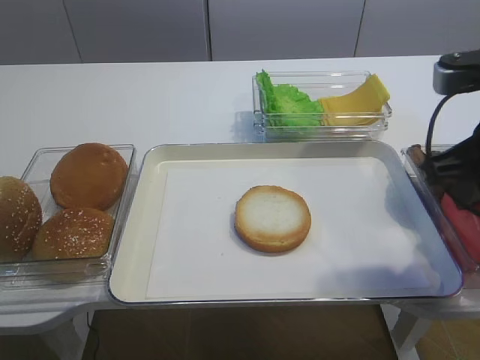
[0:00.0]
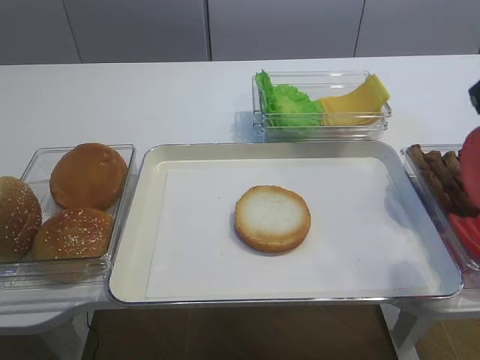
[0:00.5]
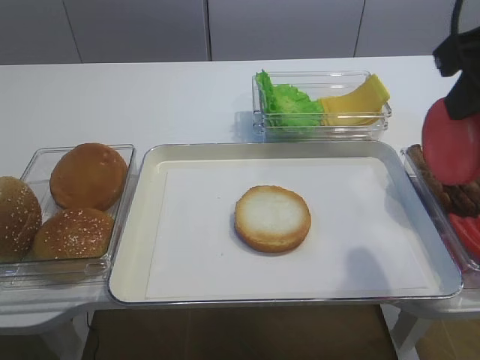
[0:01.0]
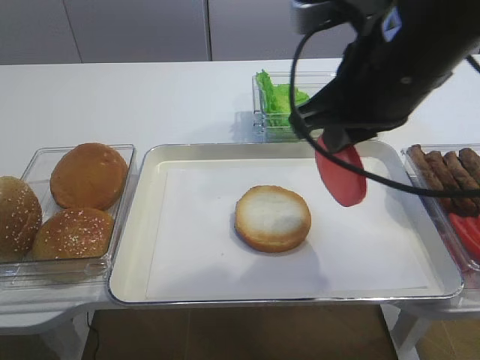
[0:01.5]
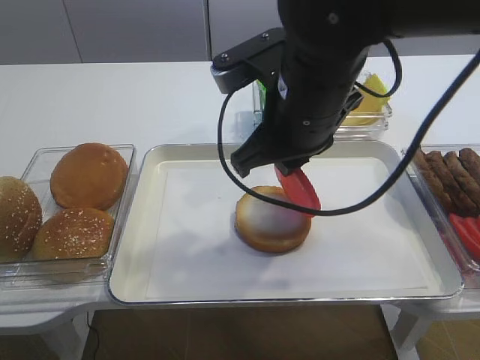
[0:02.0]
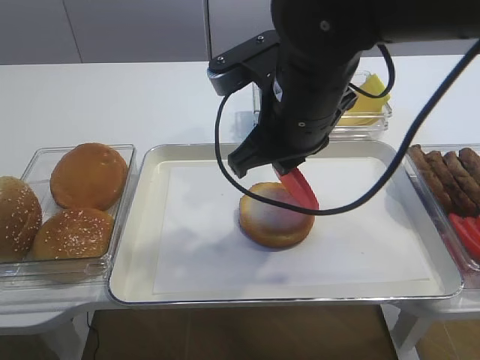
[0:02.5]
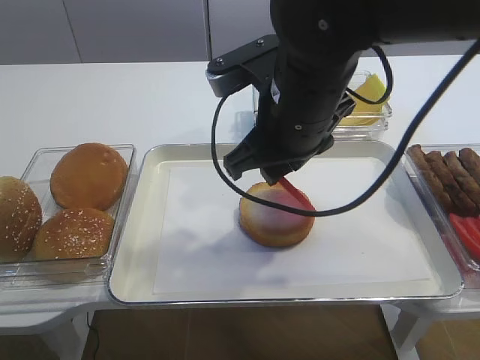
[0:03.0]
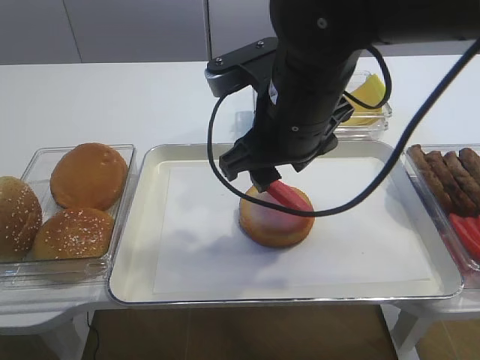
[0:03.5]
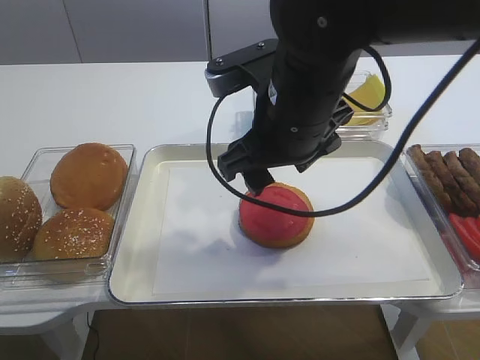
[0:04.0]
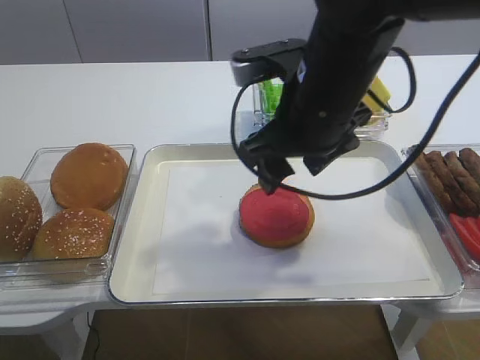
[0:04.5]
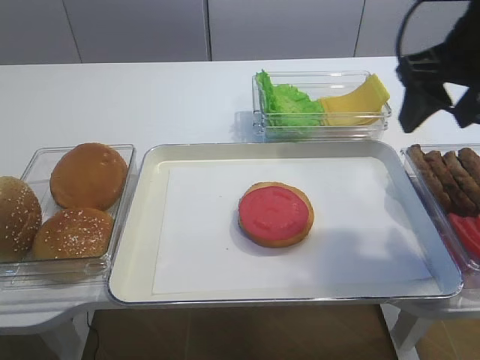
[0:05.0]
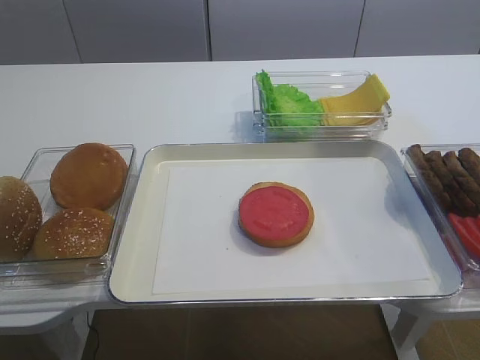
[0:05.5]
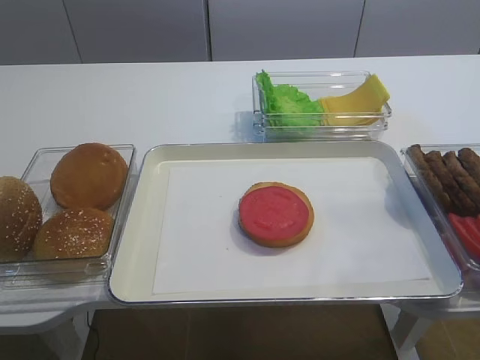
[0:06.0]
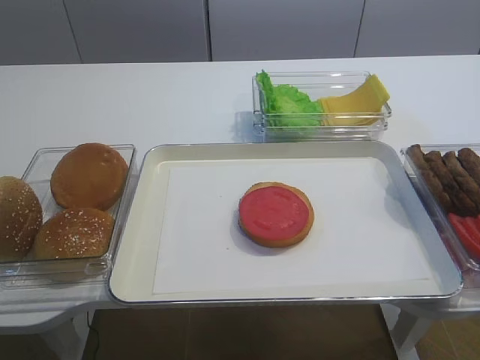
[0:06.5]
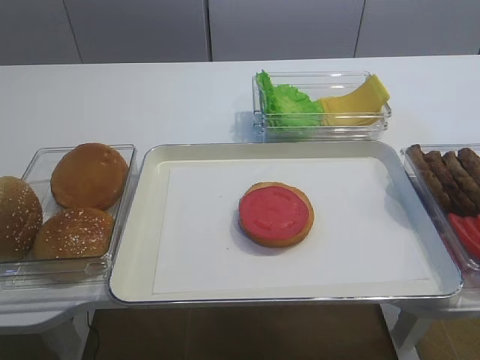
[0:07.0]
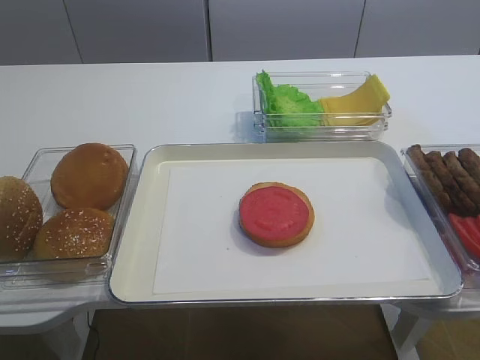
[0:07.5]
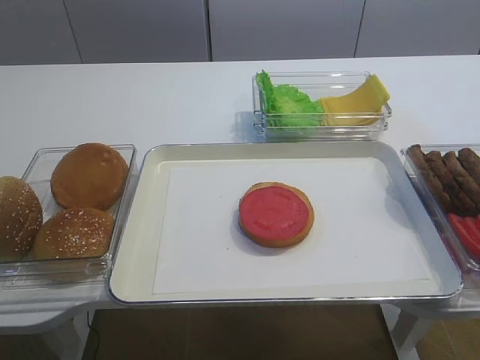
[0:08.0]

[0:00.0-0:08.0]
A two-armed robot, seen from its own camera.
Step, 0:01.0 to 0:04.0: Place the tomato slice on the bread slice with the right gripper.
0:00.0 to 0:02.0: The right gripper heads to the left, covering some 15 cm.
0:02.0 to 0:04.0: The right gripper opens up.
0:04.0 to 0:06.0: The right gripper heads to the right and backward, covering some 30 cm.

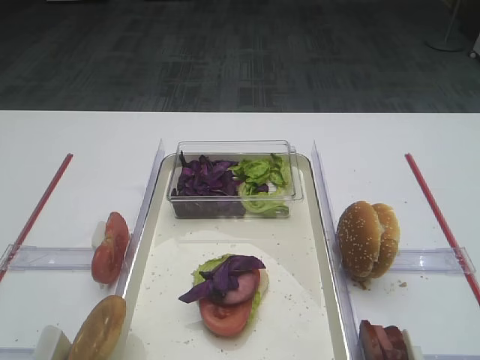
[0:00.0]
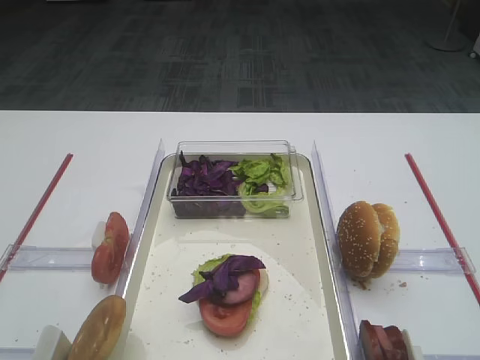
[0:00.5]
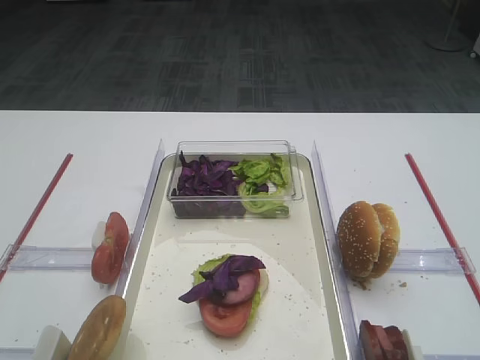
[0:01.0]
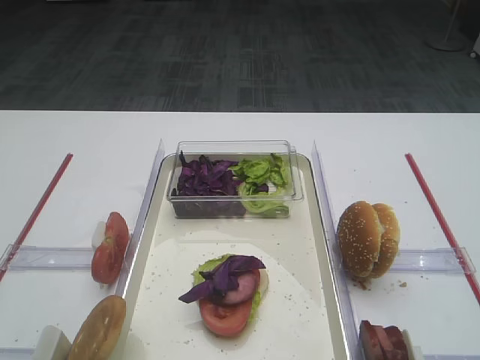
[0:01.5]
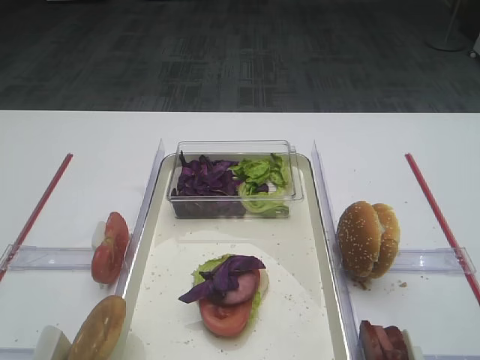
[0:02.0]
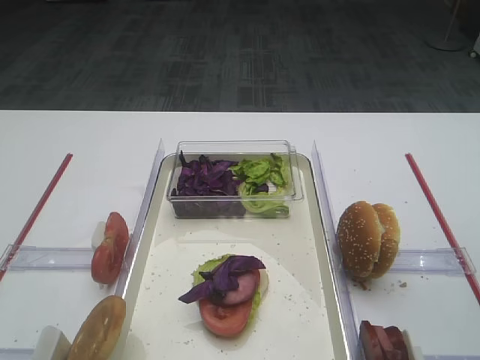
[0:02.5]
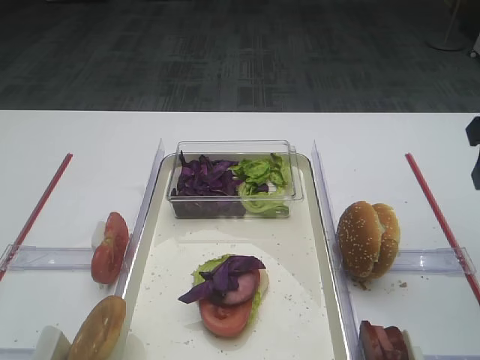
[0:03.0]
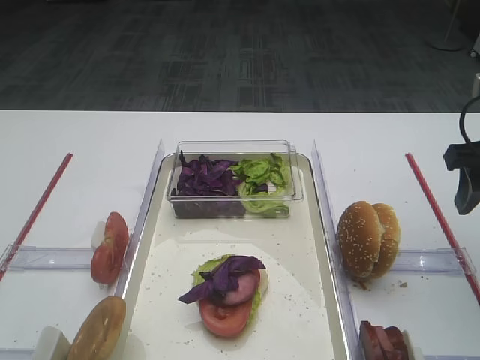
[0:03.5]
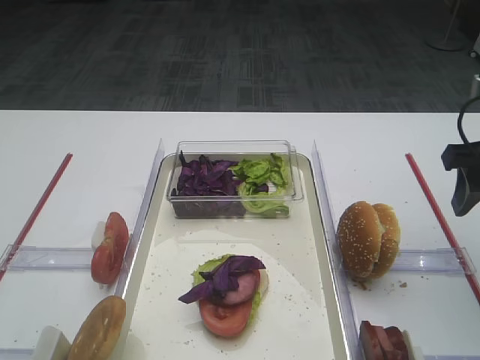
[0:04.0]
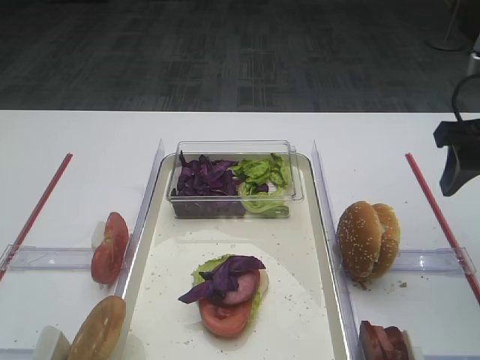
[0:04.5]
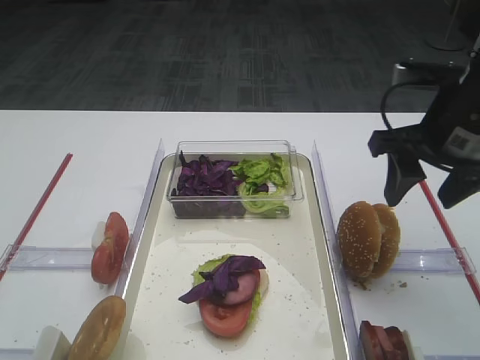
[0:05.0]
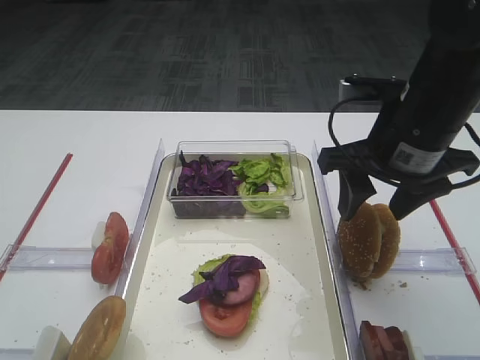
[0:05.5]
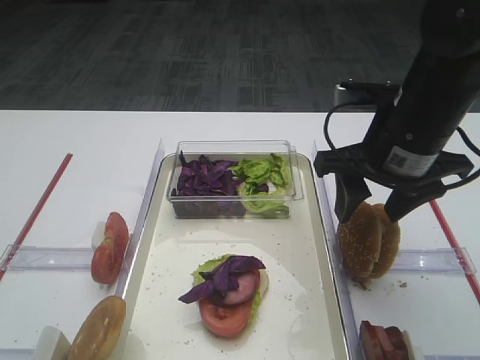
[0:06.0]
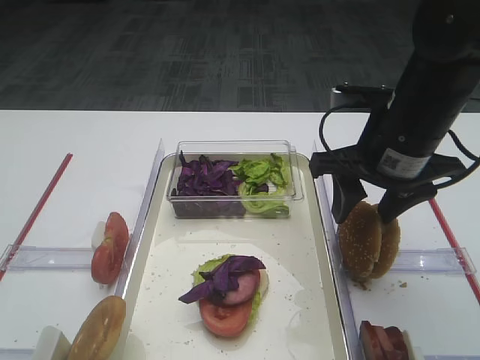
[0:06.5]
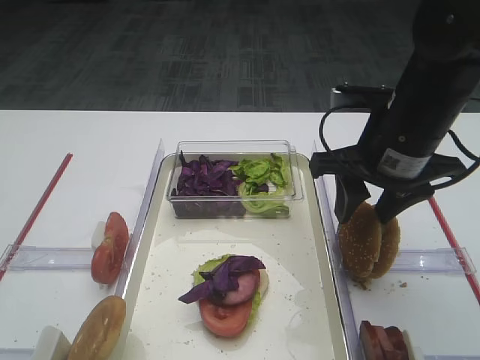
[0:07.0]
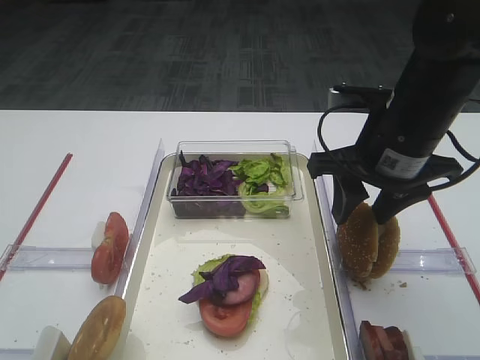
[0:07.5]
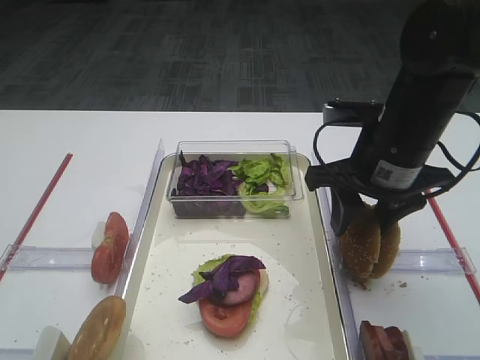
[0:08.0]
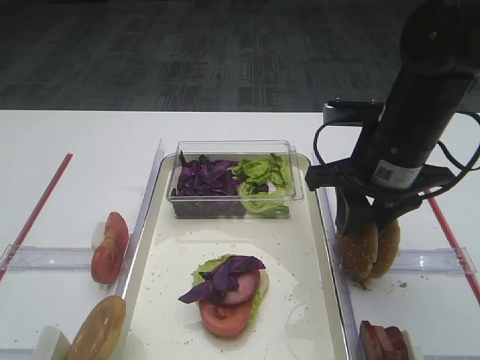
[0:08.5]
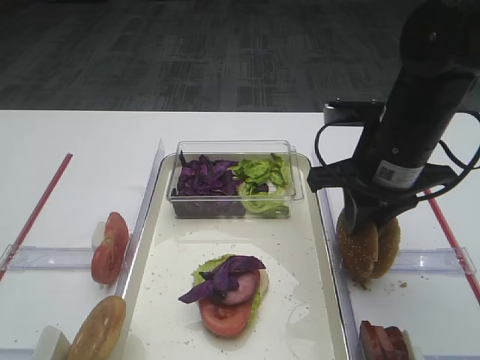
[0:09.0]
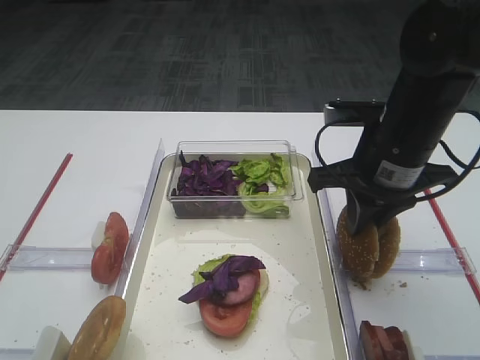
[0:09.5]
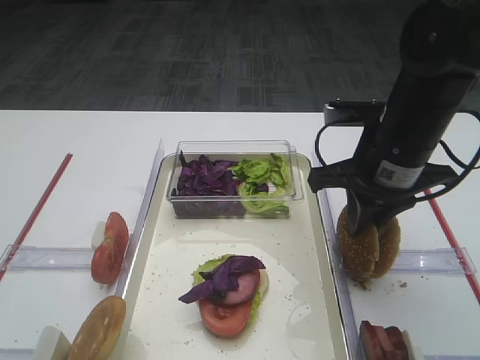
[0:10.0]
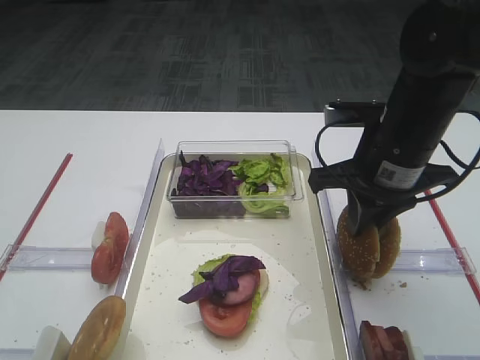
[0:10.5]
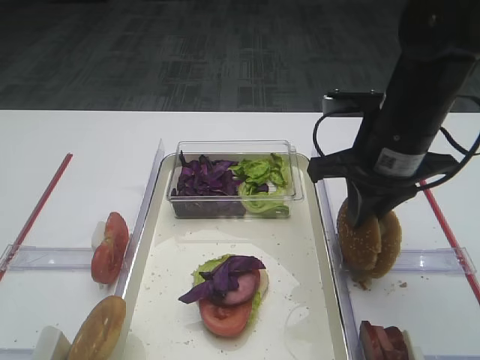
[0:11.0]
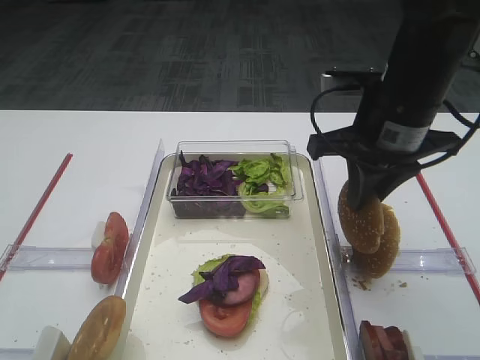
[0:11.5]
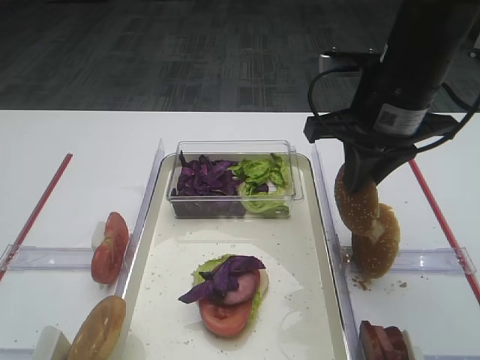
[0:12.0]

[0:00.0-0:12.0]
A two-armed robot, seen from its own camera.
Step, 0:00.0 to 0:11.0: Pick up the hamburger lid with the right gripper.
0:02.0 to 0:04.0: The right gripper travels forward by some 20 cm.
0:04.0 to 0:06.0: The right gripper heads to the left, covering approximately 10 cm.
0:06.0 to 0:08.0: The grippers stay close to where they were, moving slightly.
0:08.0 to 0:10.0: The right gripper closes up.
0:10.0 to 0:12.0: The right gripper is displaced upward by roughly 5 cm.

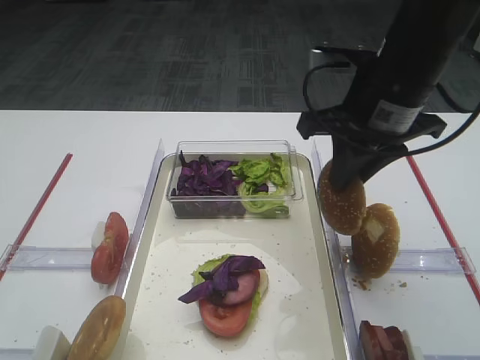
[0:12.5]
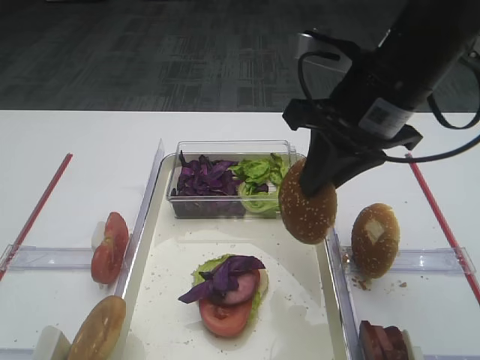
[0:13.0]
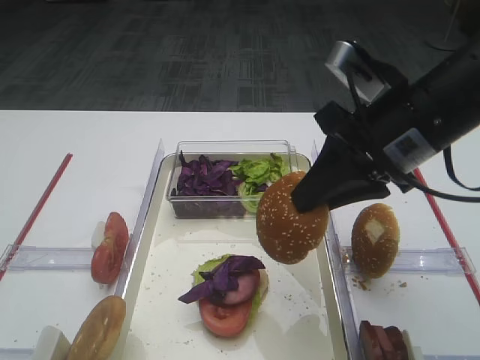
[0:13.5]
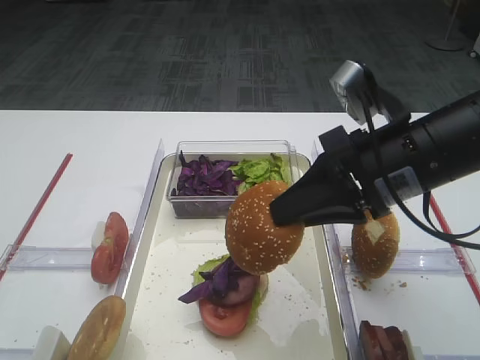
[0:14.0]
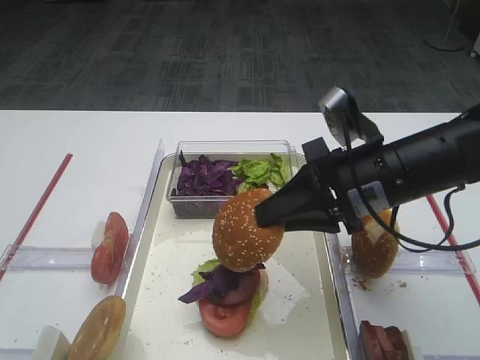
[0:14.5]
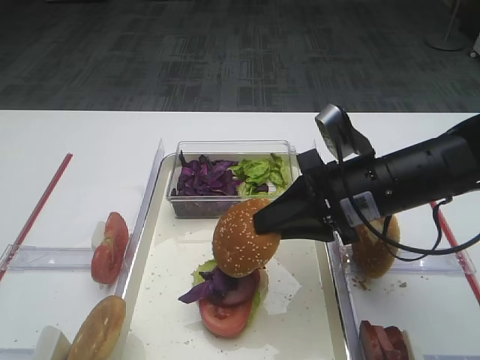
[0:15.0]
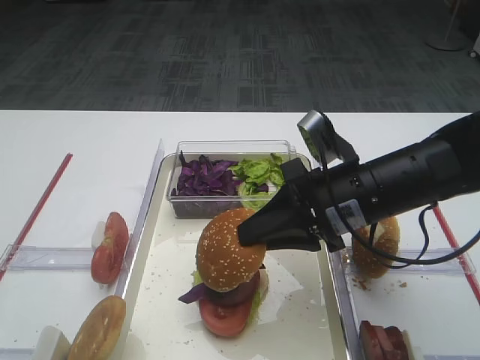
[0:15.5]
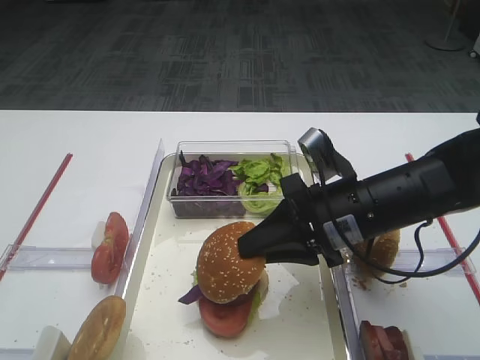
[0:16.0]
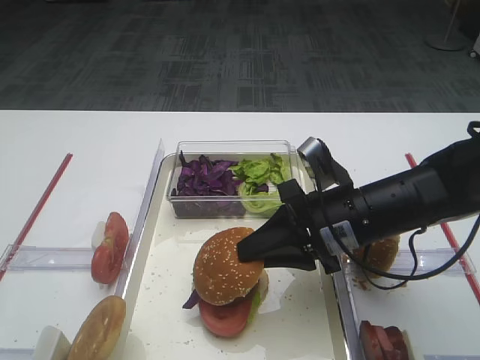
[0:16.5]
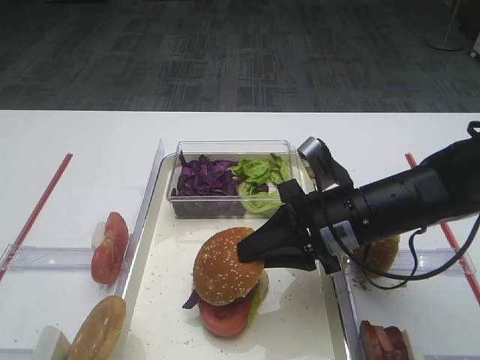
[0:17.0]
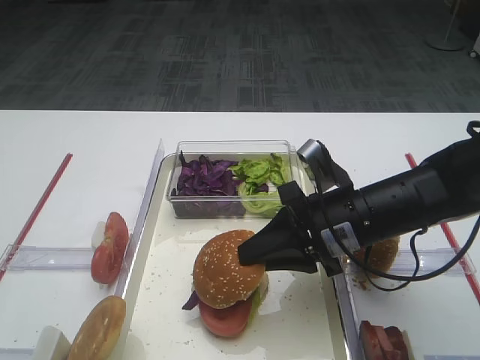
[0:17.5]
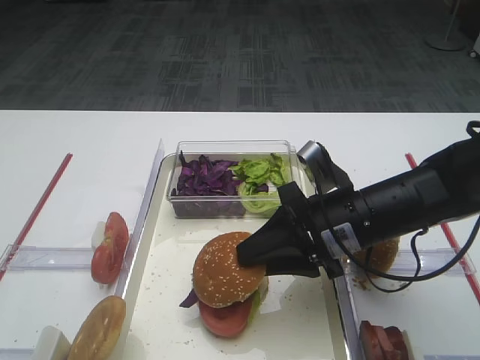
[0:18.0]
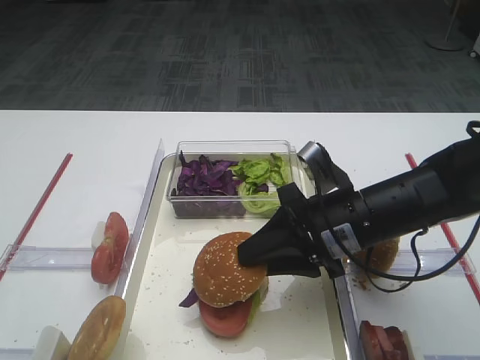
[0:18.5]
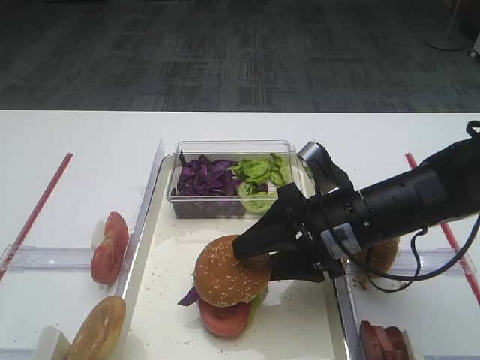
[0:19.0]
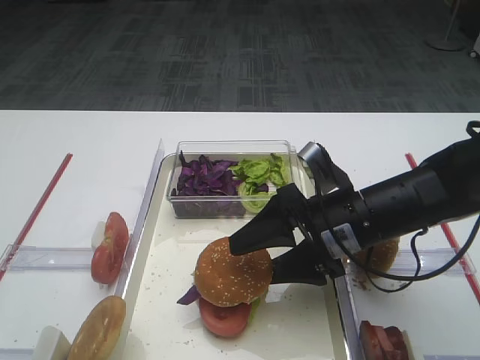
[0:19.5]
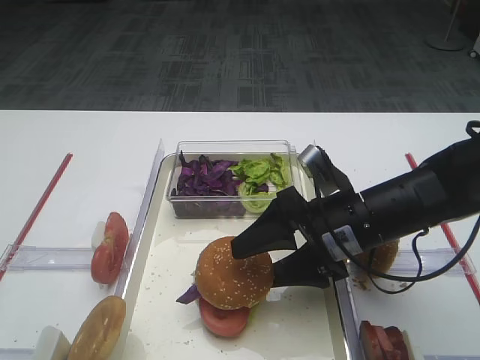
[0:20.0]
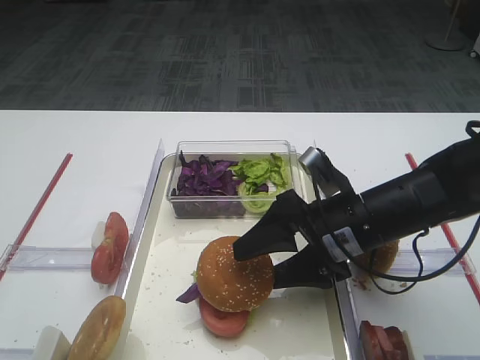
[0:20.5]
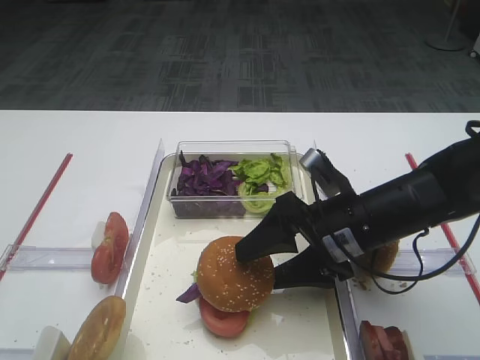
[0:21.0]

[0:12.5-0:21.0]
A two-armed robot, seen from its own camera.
0:12.5 to 0:14.5: The right gripper is displaced downward by roughly 10 cm.
0:14.5 to 0:16.5: The right gripper goes about 5 cm downward.
0:16.5 to 0:19.0: The right gripper opens.
0:19.0 to 0:21.0: There are only small adjustments of the grippers.
